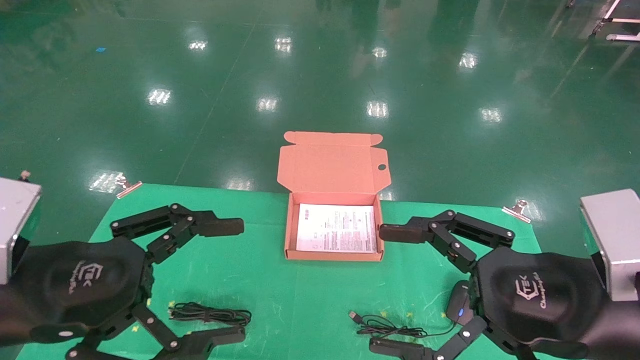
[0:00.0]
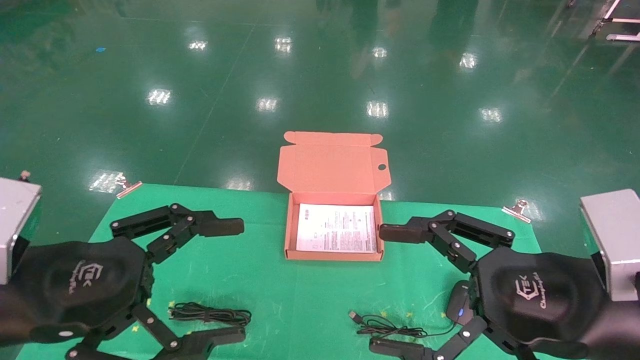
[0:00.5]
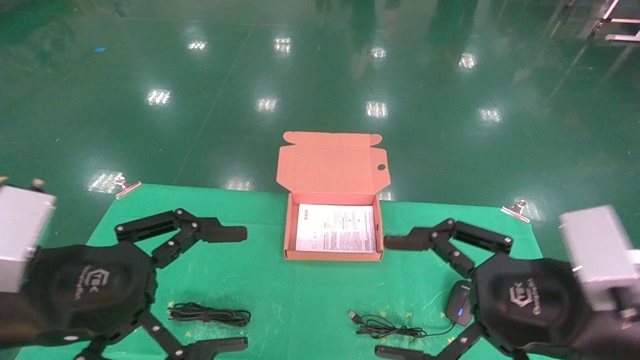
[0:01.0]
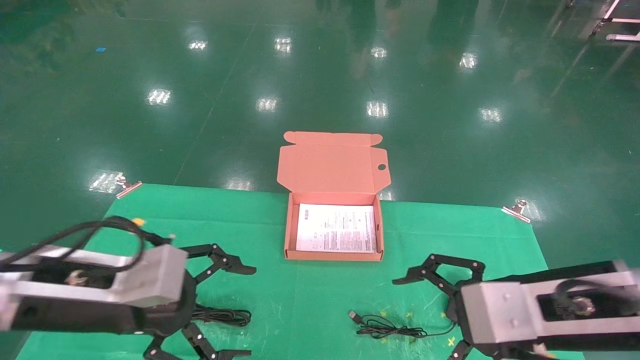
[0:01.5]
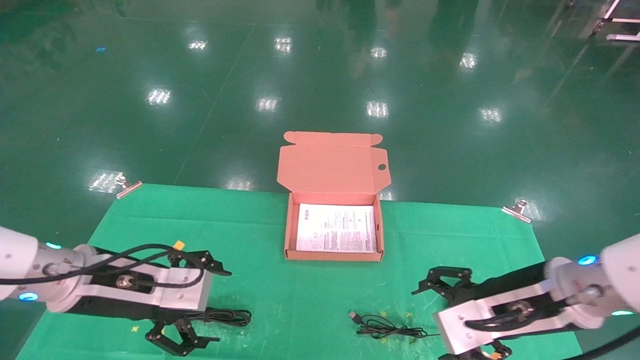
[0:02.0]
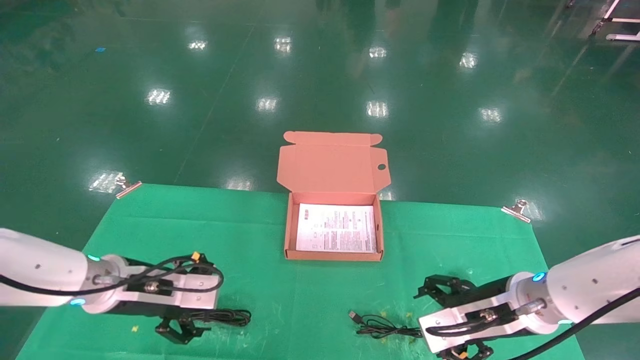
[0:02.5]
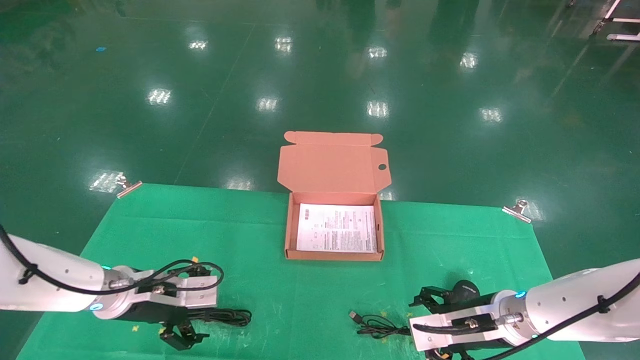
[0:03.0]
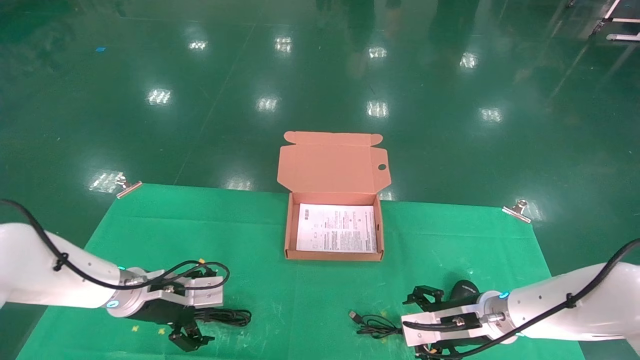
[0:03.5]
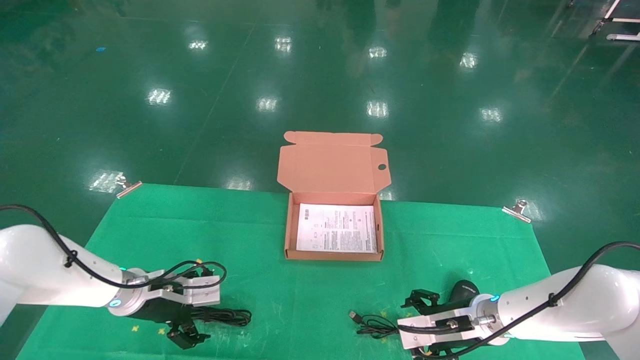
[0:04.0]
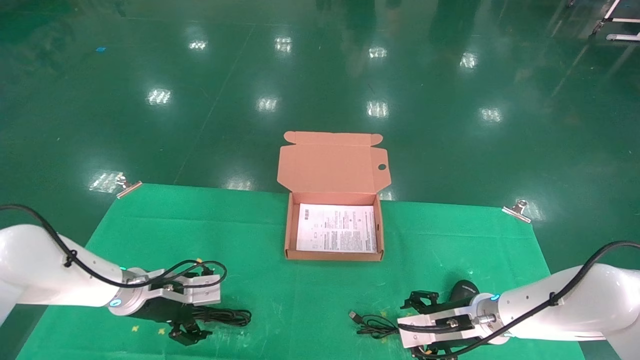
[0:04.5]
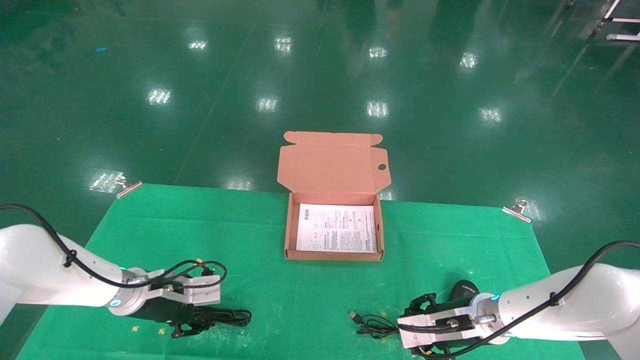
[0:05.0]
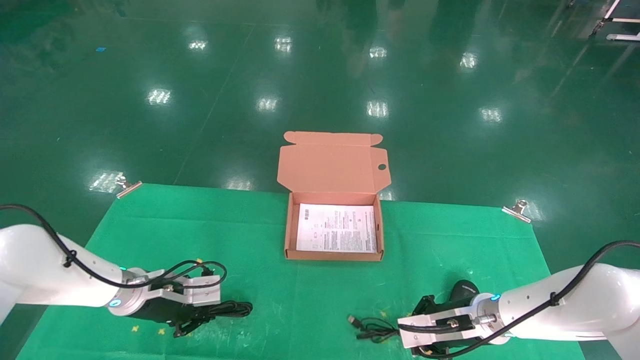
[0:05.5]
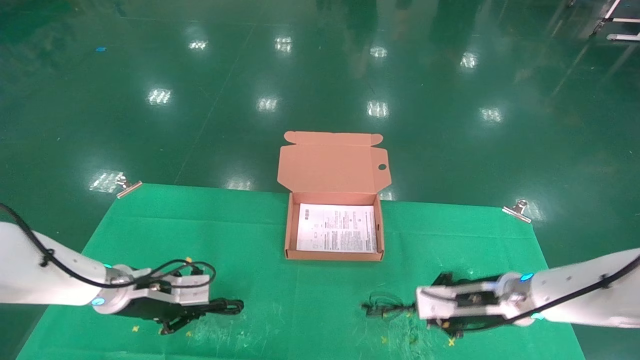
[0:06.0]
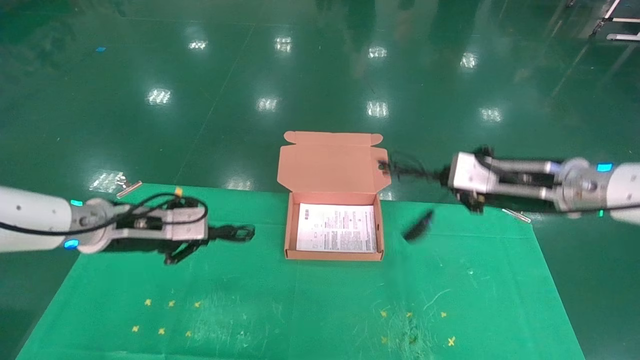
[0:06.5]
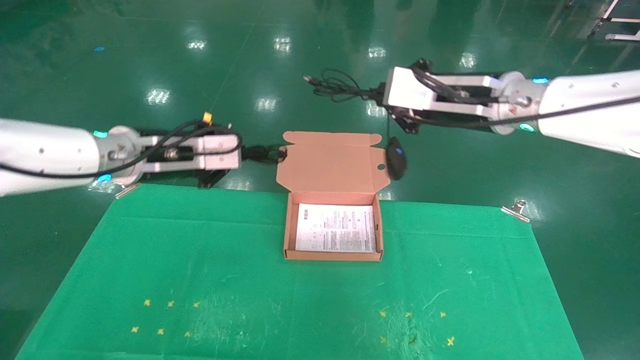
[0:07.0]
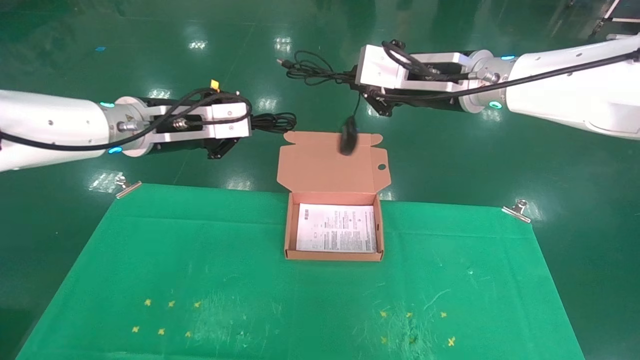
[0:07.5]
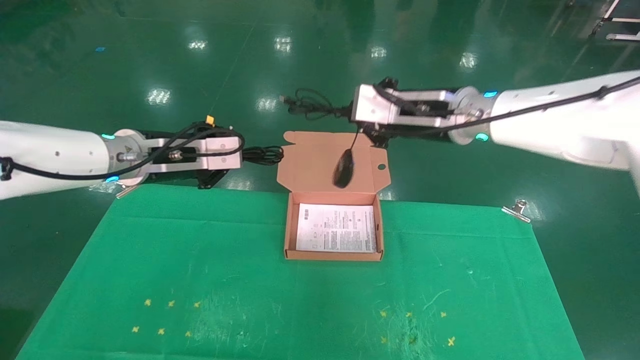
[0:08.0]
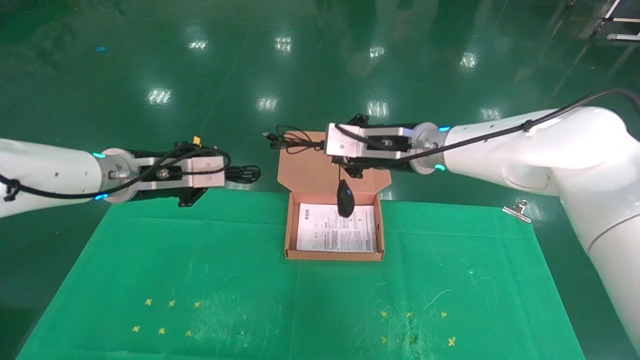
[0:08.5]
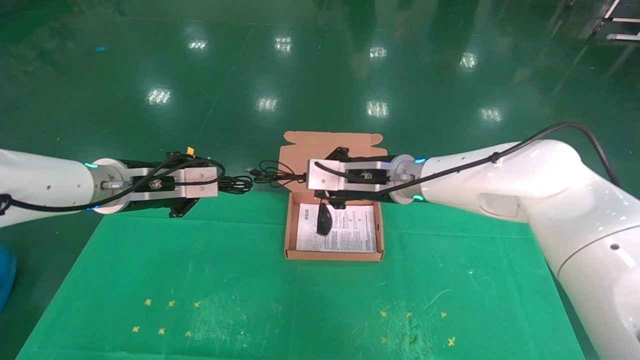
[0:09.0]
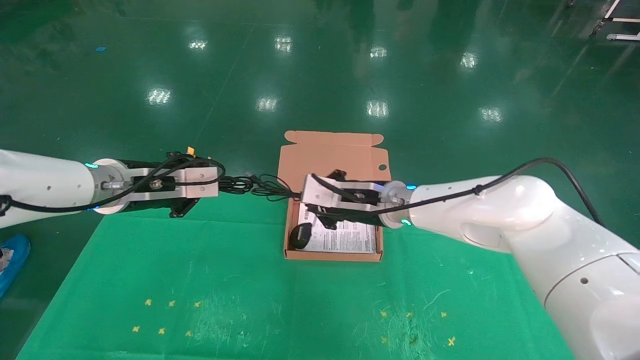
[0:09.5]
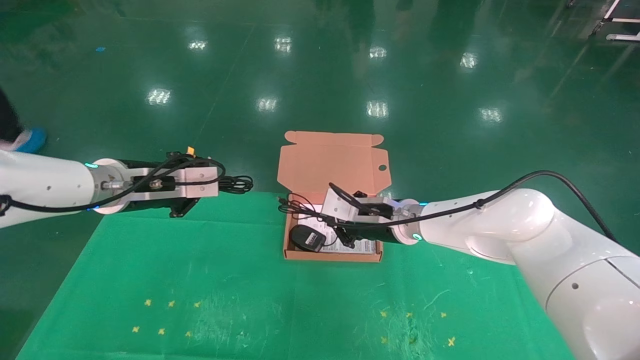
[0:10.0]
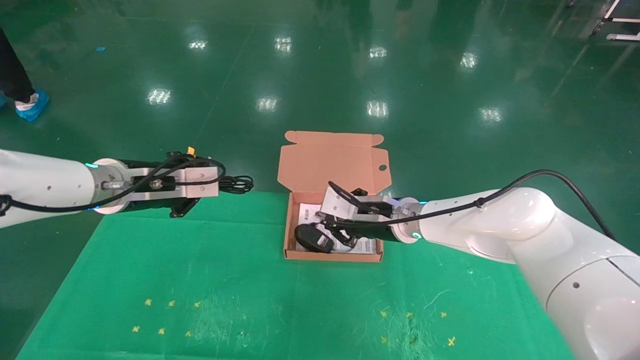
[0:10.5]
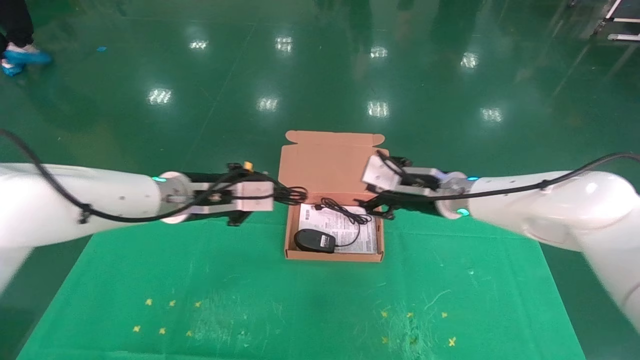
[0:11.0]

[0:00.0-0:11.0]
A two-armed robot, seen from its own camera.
Task of the whole recording: grasp data cable left put into box grasp mouse right put into box.
Step, 0:01.5 to 0:05.5: Grab and pick up both the mouse and power cord from the accessory packaging area at the same time.
0:00.0 to 0:02.0: Both grippers travel together forward and downward, roughly 15 cm.
0:02.0 to 0:03.5: The left gripper shifts approximately 15 cm forward and downward; the right gripper moves downward and forward, roughly 15 cm.
0:03.5 to 0:05.5: The right gripper closes up. Meanwhile the left gripper closes.
0:05.5 to 0:07.5: The grippers both shift upward by about 30 cm.
0:07.5 to 0:09.0: The right gripper moves downward and to the left, roughly 15 cm, while the left gripper goes approximately 5 cm downward.
0:09.0 to 0:11.0: The grippers both shift to the right by roughly 10 cm. The right gripper opens its fingers.

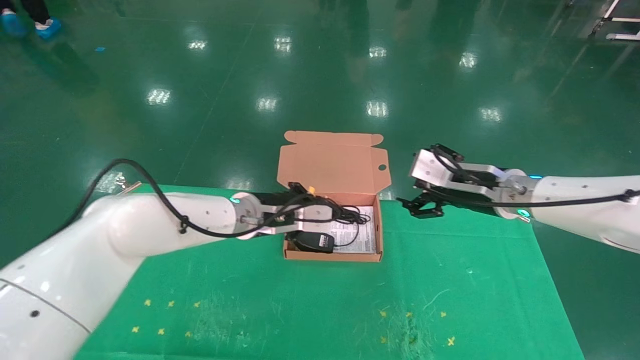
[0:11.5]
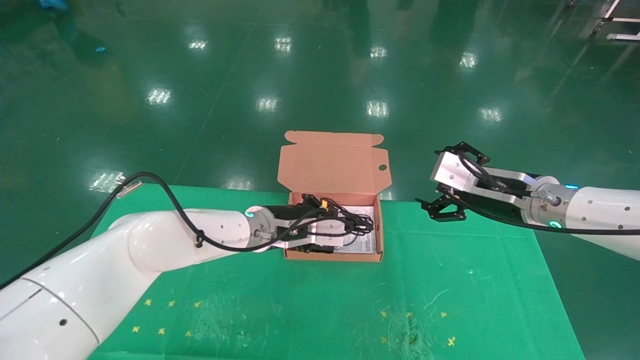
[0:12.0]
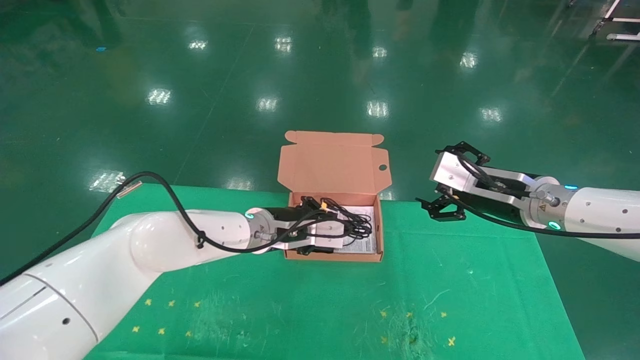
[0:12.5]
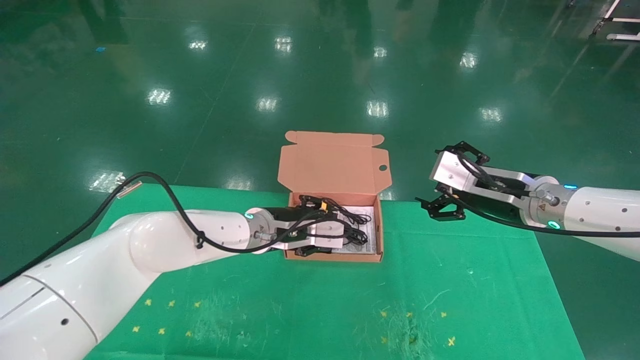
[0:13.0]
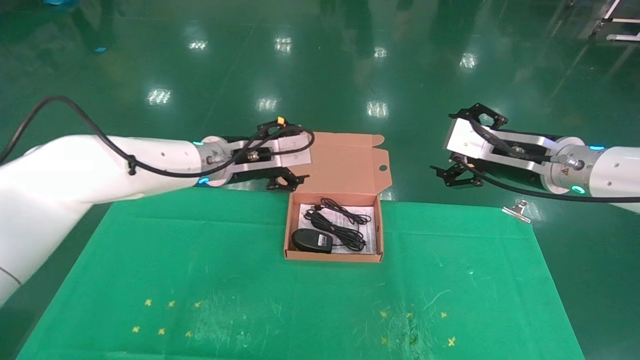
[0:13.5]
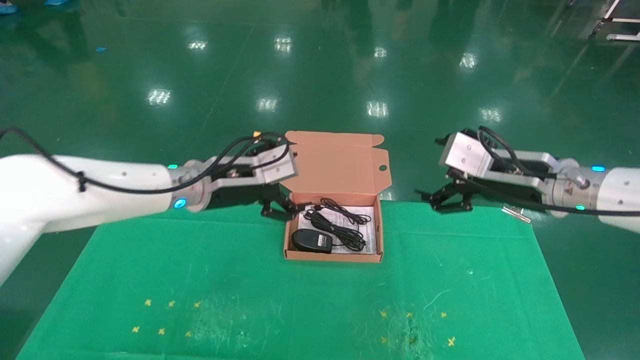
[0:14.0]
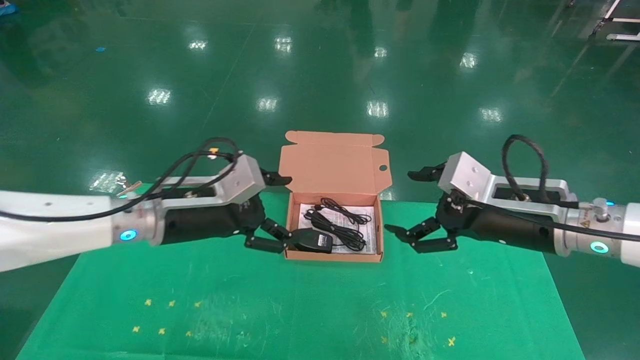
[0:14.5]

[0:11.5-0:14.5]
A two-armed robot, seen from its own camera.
Task of the whole recording: grasp data cable left put into box grasp mouse right put into box.
0:11.5 to 0:13.0: The left gripper opens up.
0:13.0 to 0:14.5: The right gripper goes approximately 5 cm backward, while the left gripper moves to the left and backward, approximately 10 cm, and opens up.
